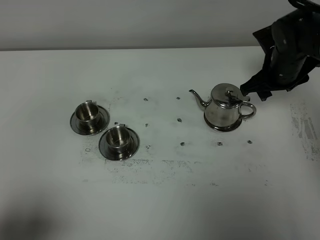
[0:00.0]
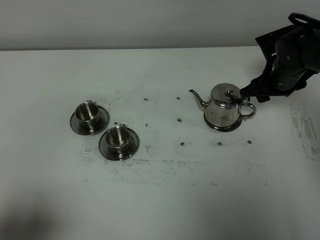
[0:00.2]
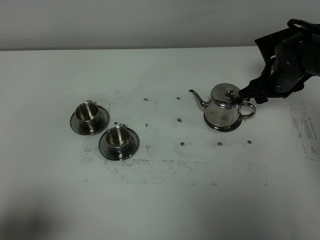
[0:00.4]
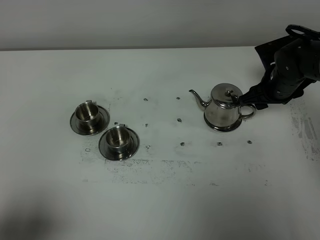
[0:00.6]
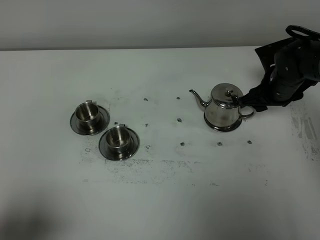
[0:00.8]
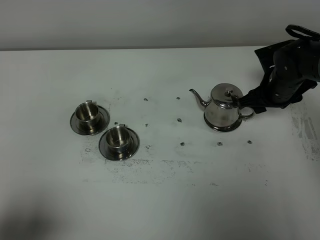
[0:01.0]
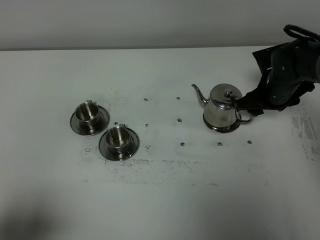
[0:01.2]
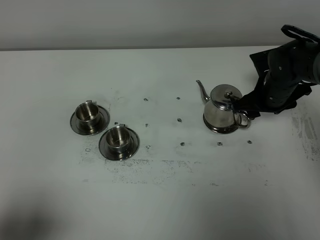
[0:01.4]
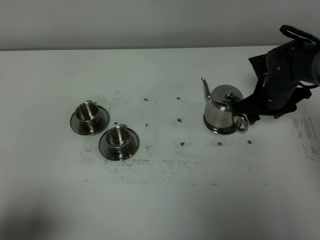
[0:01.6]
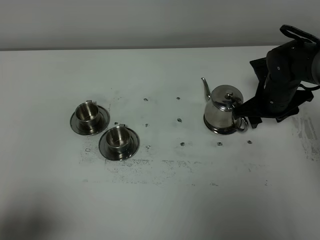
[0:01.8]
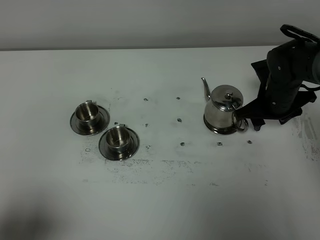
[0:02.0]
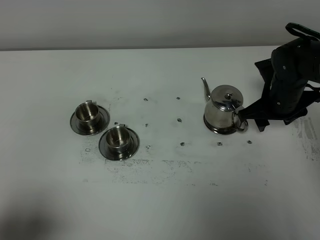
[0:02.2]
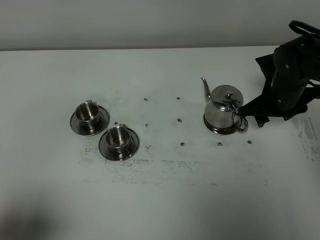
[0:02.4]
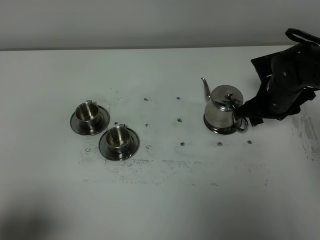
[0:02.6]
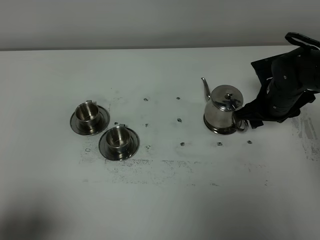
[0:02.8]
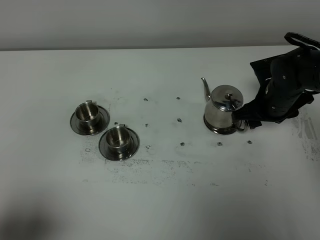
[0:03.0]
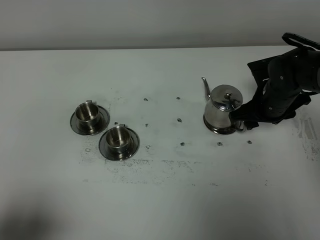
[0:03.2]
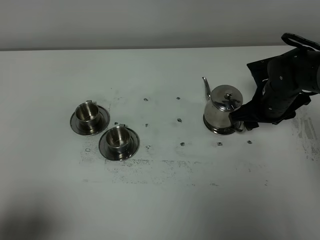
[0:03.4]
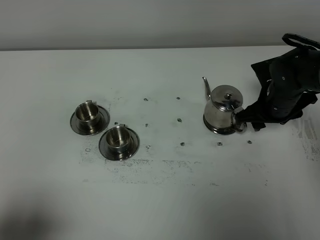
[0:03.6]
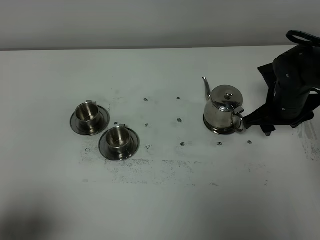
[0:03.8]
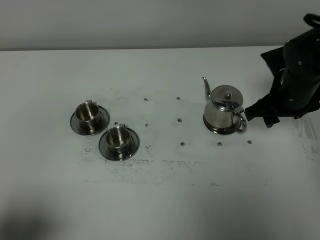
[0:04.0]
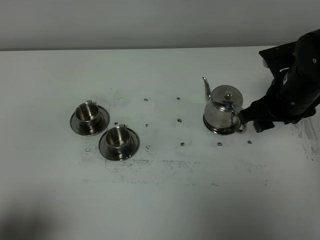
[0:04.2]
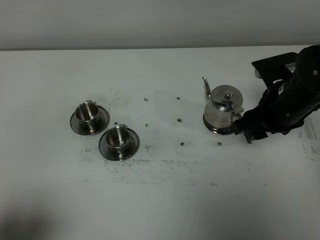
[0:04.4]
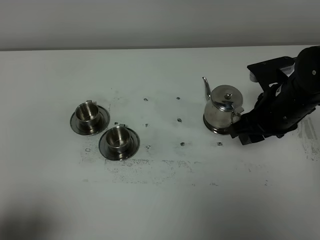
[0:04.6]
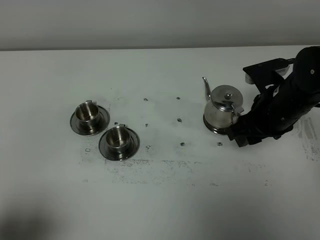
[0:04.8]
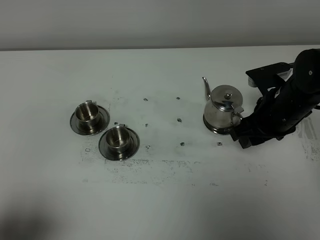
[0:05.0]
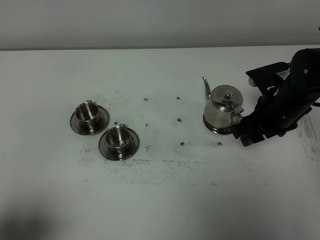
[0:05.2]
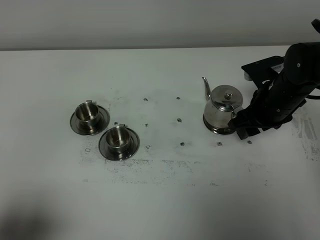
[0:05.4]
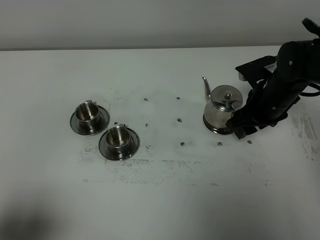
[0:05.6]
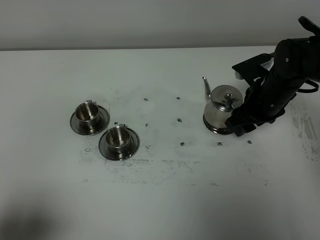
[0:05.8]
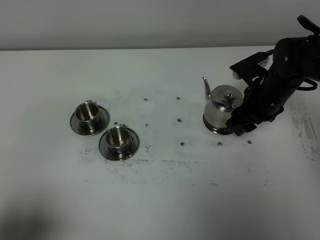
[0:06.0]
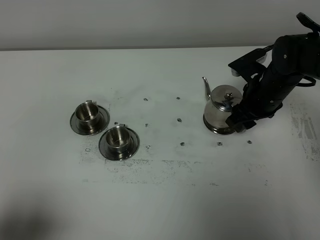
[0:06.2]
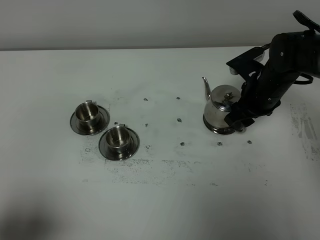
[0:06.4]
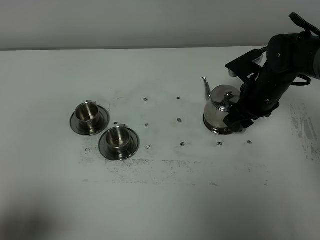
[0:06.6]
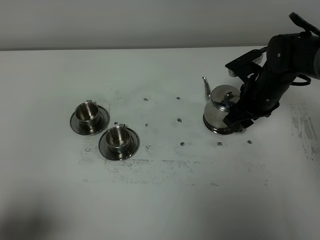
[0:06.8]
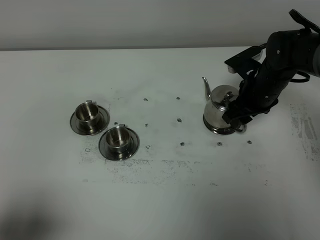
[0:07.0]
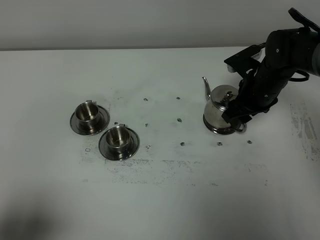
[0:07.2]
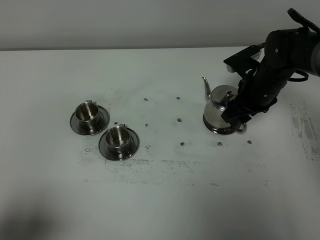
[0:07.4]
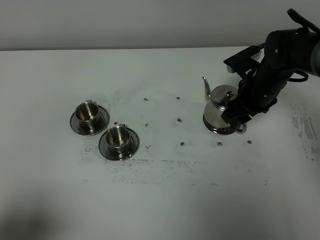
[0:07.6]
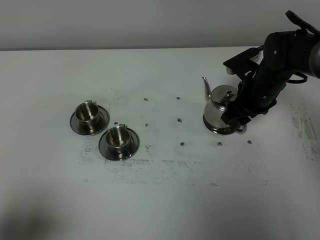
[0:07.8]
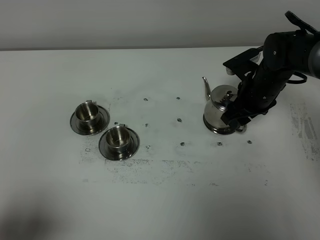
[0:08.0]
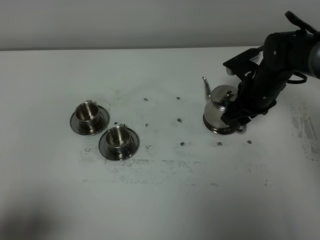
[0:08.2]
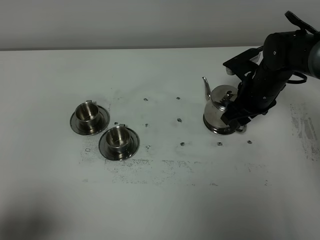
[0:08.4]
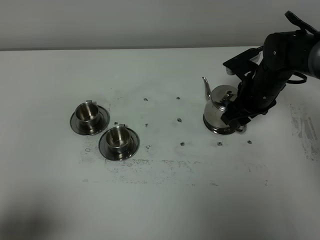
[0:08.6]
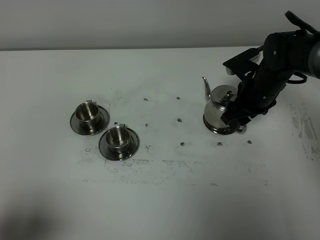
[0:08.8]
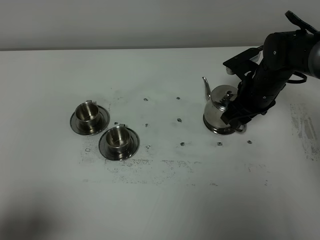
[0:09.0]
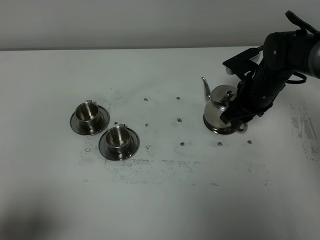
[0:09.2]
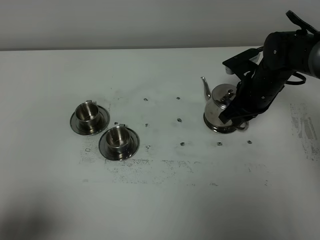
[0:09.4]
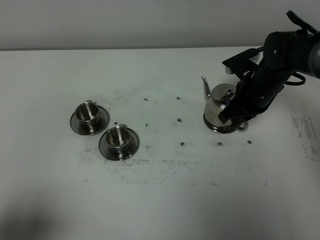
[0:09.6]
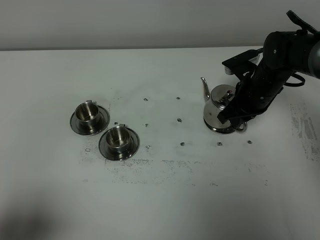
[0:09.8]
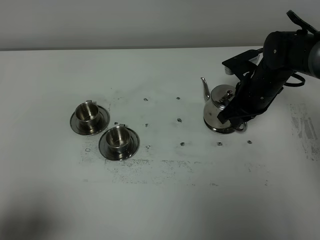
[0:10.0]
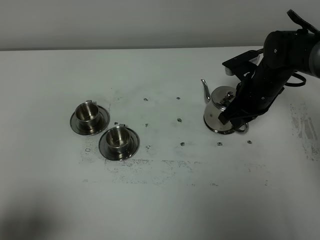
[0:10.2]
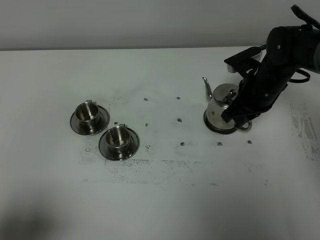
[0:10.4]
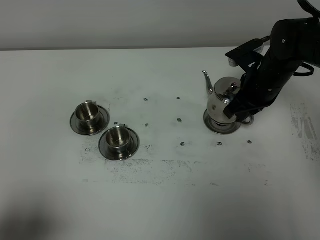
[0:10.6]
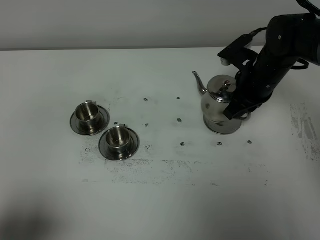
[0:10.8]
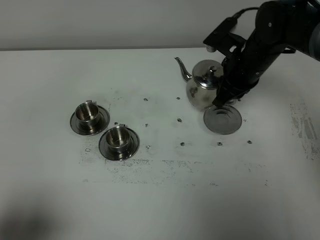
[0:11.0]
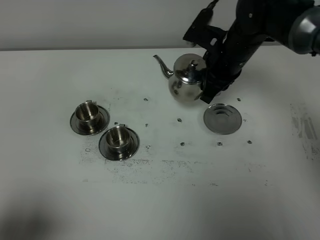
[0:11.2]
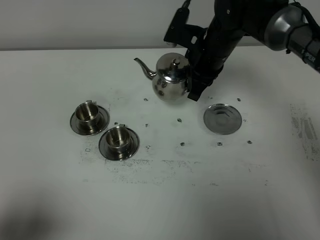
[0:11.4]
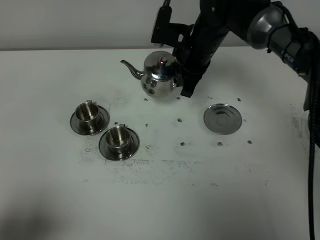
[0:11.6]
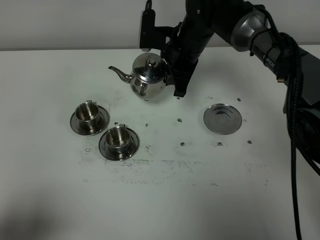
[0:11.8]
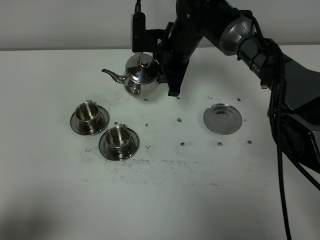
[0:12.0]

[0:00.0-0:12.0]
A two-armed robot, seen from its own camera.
Task of the whole recording: grasp the stainless steel teapot and pour the tea into the two stainless steel teacups one by one, put the stainless steel teapot back in its original place.
Step, 0:00.0 to 0:10.6: Pick up the teapot with the right gripper.
0:00.0 to 0:03.0: The grippers move only a little.
0:03.0 to 0:04.4: The right gripper shifts roughly 10 cm backward and upward.
0:04.4 to 0:06.0: The right gripper goes some 5 cm forward.
0:06.0 to 0:07.6: The grippers make only small movements.
0:07.6 to 0:09.0: The two grippers keep their place.
0:09.0 to 0:10.4: The right gripper closes up.
0:10.4 to 0:12.0: The right gripper shifts some 15 cm to the left and forward.

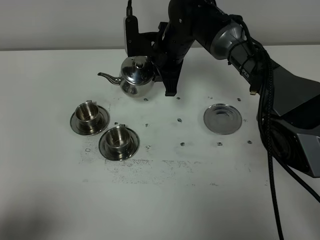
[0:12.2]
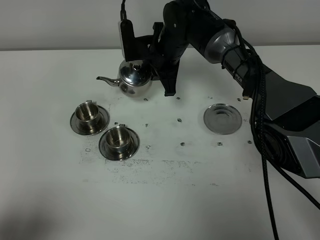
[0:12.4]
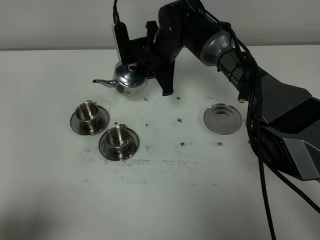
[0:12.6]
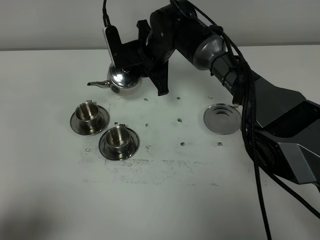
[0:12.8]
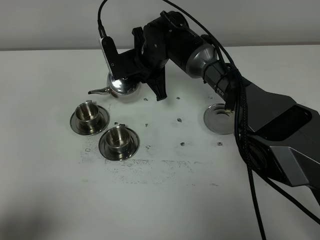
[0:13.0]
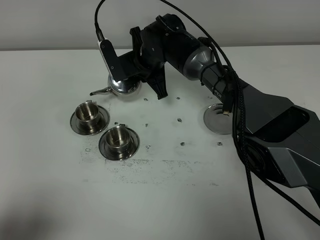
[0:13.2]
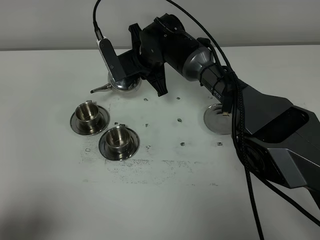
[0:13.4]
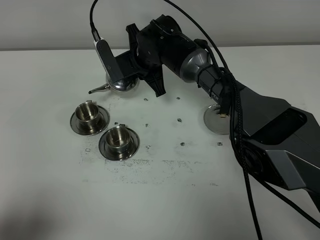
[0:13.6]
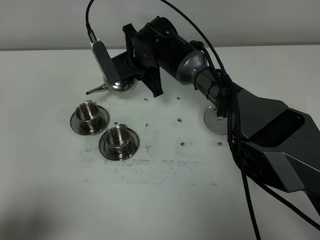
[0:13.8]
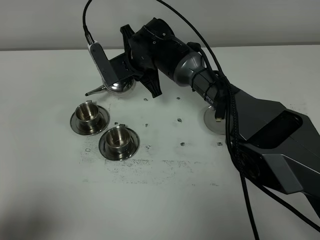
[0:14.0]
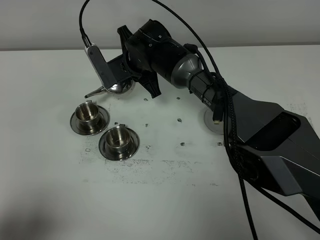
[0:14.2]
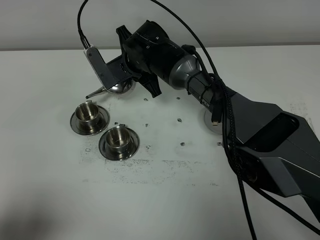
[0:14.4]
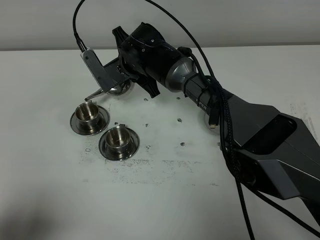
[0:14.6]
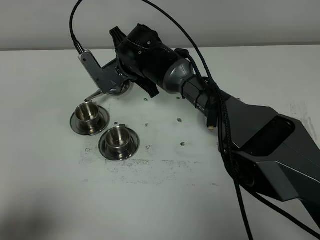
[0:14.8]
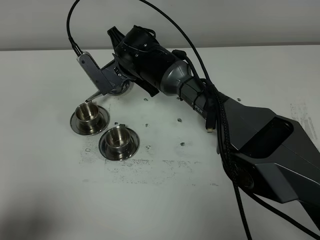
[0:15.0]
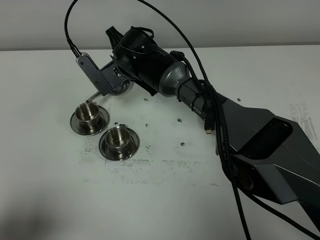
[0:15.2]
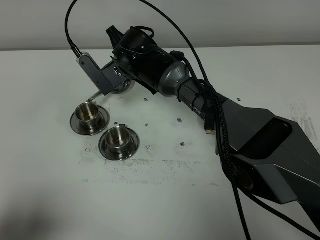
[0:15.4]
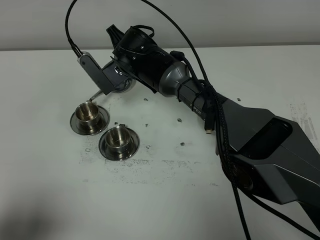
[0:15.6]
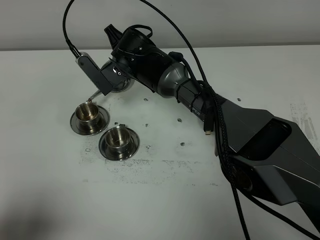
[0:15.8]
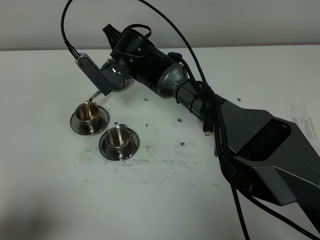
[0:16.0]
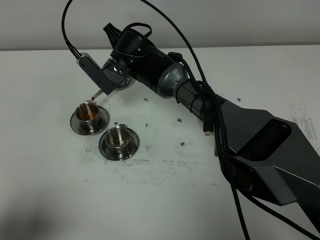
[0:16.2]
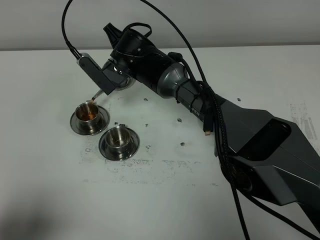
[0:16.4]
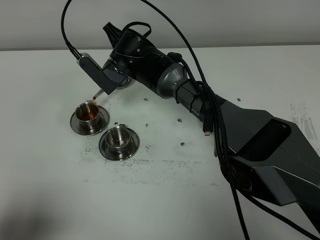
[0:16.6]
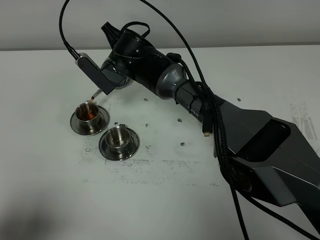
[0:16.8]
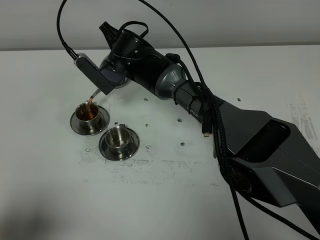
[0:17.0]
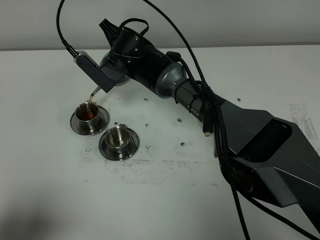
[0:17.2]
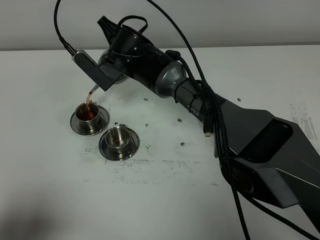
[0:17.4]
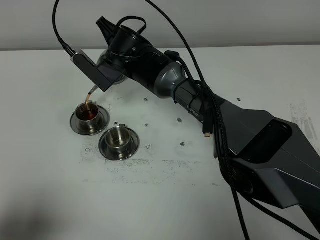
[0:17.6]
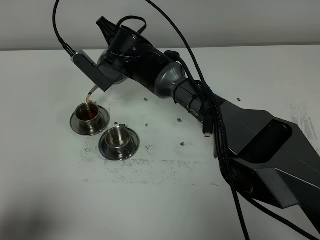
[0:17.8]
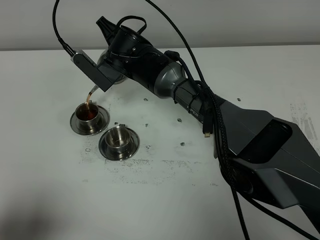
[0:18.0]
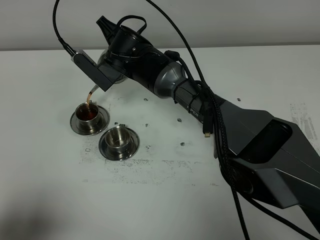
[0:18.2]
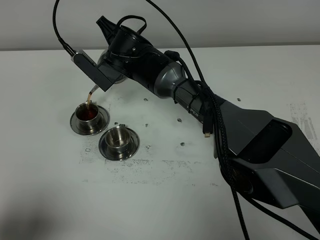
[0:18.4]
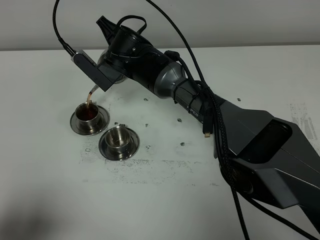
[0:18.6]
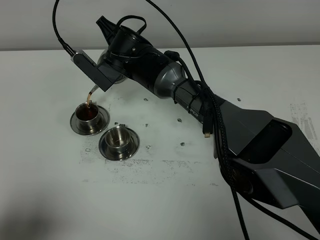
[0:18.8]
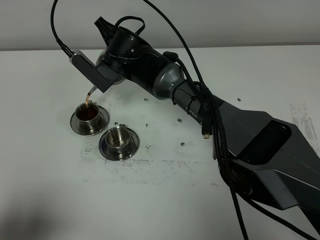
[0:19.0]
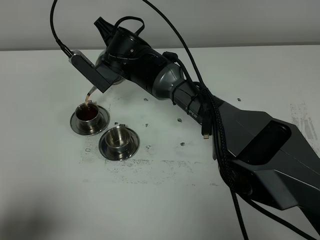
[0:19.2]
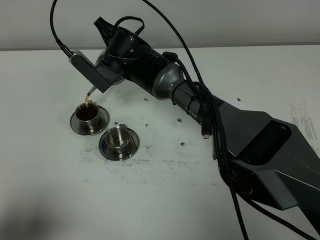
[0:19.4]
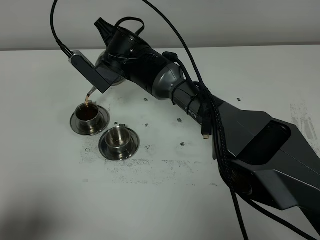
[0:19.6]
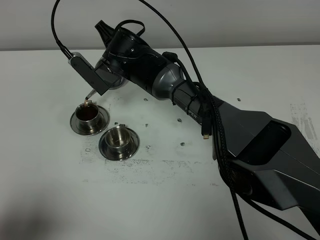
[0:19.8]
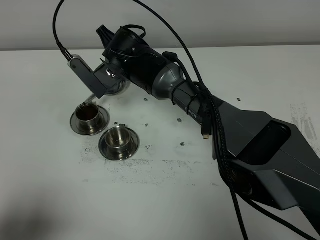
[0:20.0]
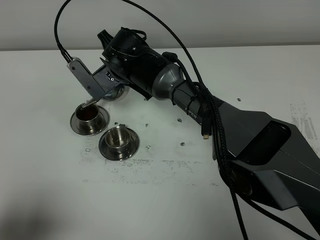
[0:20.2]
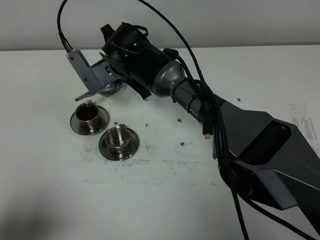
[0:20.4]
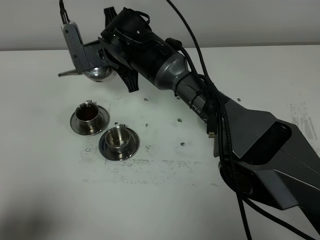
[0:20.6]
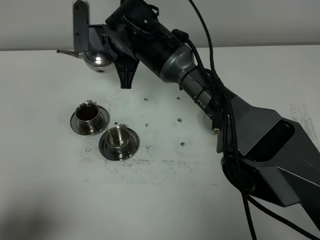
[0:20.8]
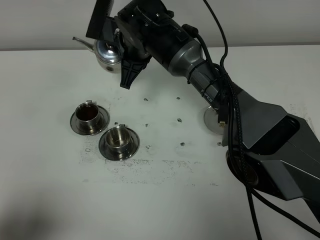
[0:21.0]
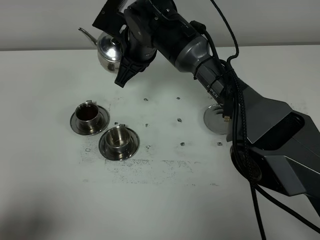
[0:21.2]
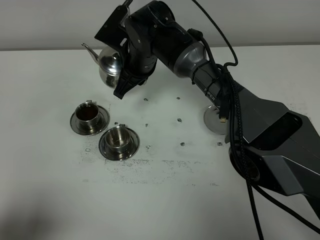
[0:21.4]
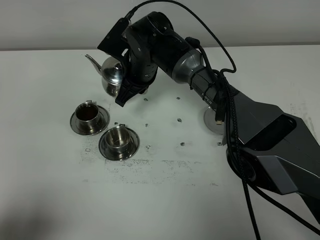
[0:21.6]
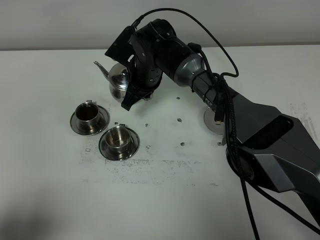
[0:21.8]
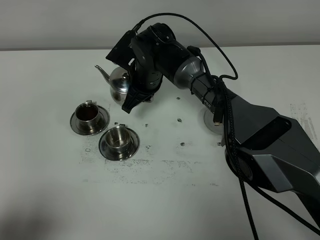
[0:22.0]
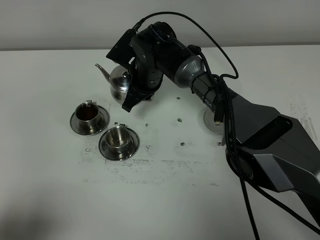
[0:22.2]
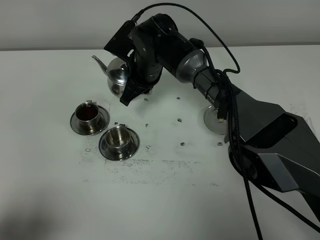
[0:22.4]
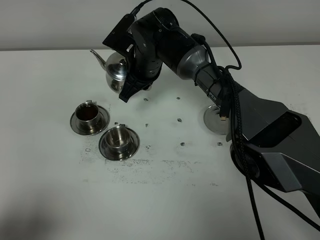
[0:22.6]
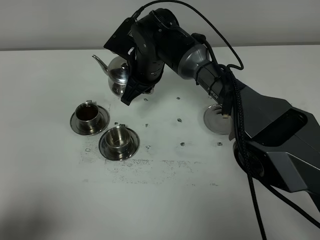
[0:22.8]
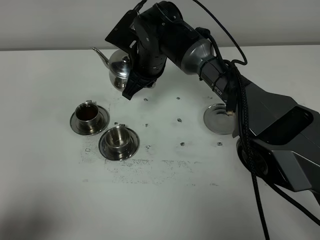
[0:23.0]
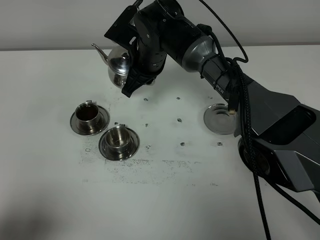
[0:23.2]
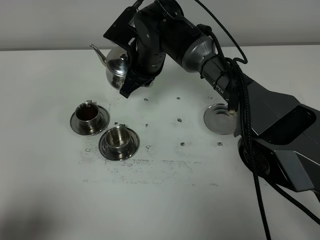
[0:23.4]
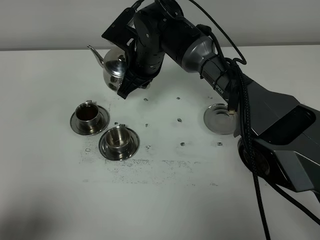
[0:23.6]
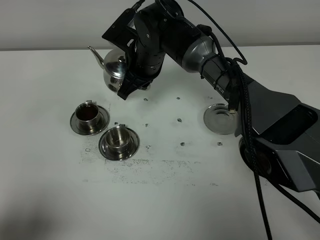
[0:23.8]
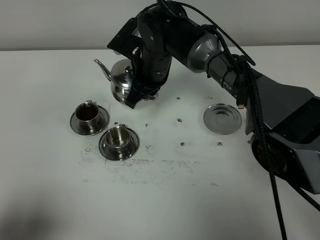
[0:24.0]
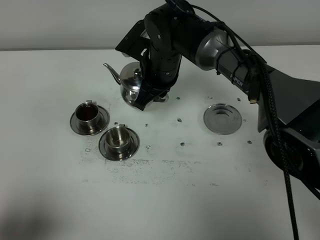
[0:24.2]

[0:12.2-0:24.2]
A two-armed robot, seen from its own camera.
Task of the whole recording: grasp the stainless steel teapot and pour the tea into the two stainless steel teacups one by one, put the stainless steel teapot back in its original place.
Step, 0:12.2 to 0:20.4: Pour tea into the teacup with the right gripper.
0:12.2 to 0:13.8: The right gripper heads to the left, covering approximately 5 cm.
0:13.8 to 0:15.2: The grippers stay close to where they were, moving slightly.
0:15.2 to 0:18.2: The grippers make only small movements.
0:18.2 to 0:19.8: Both grippers stay about where they are.
0:22.6 to 0:24.2: The right gripper changes place by about 5 cm.
